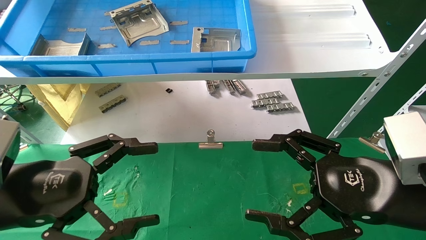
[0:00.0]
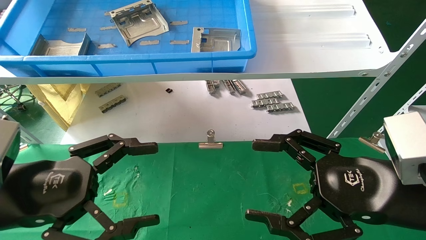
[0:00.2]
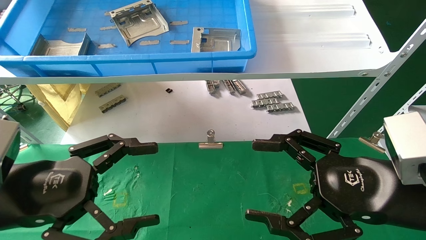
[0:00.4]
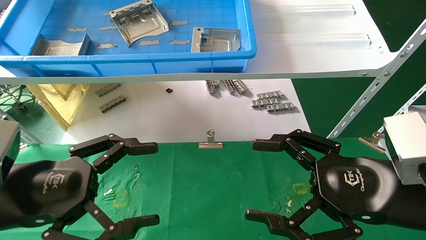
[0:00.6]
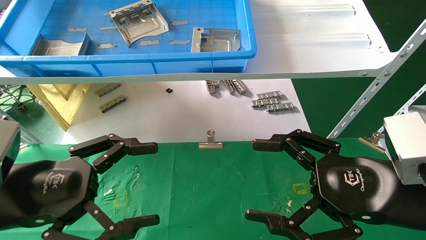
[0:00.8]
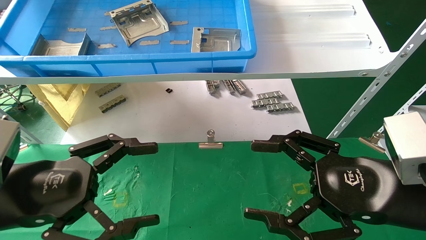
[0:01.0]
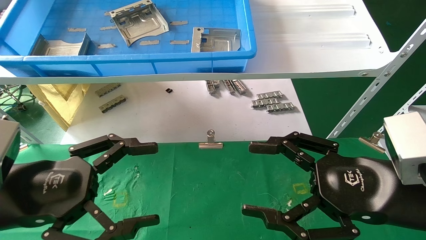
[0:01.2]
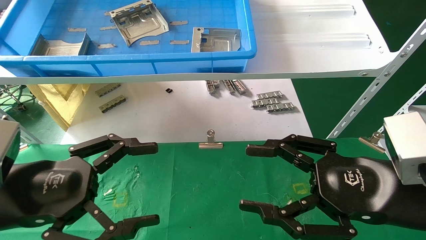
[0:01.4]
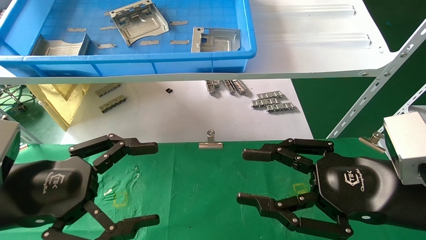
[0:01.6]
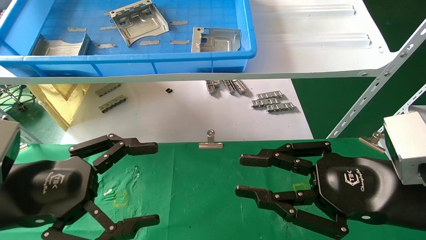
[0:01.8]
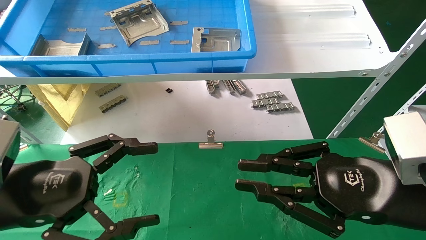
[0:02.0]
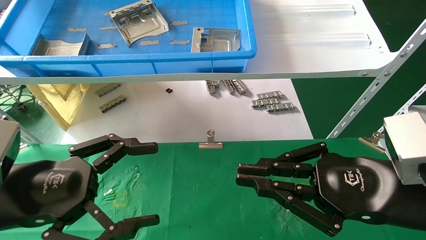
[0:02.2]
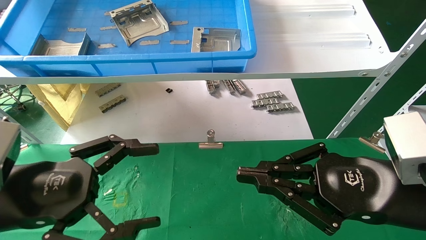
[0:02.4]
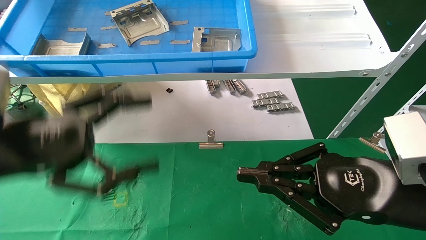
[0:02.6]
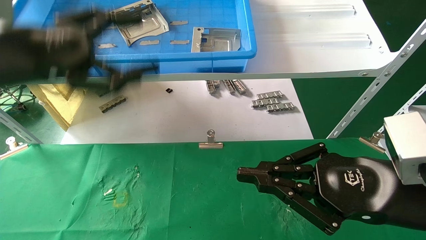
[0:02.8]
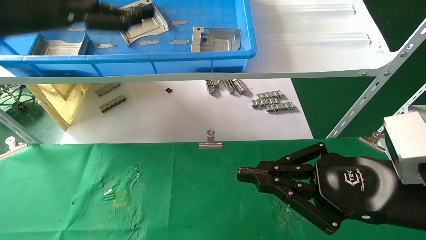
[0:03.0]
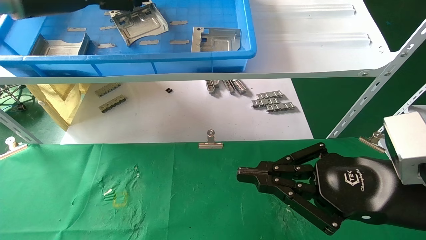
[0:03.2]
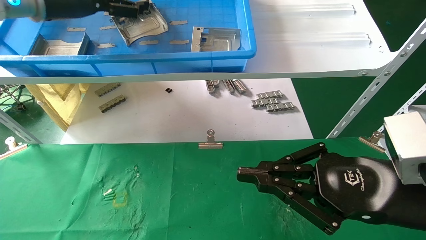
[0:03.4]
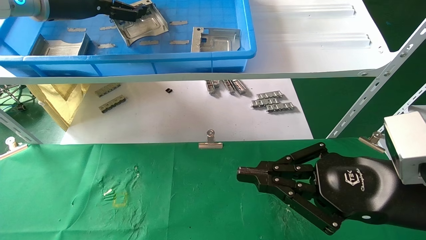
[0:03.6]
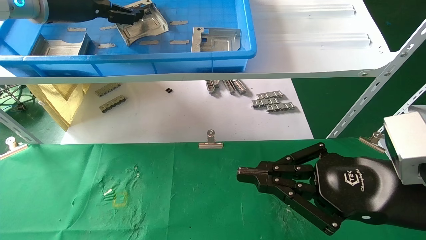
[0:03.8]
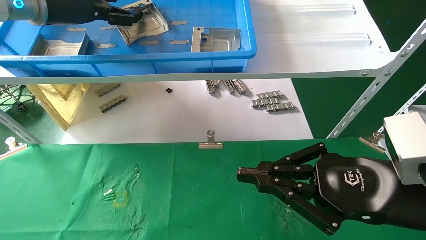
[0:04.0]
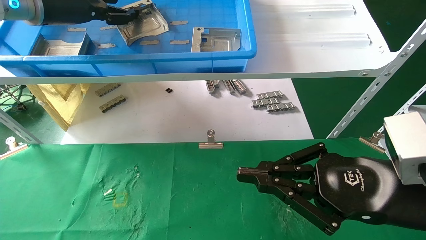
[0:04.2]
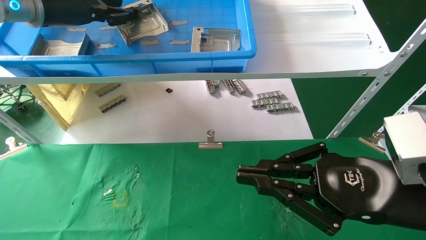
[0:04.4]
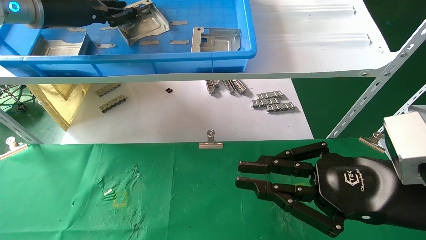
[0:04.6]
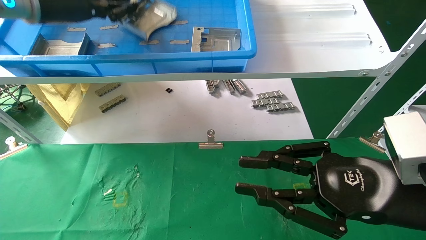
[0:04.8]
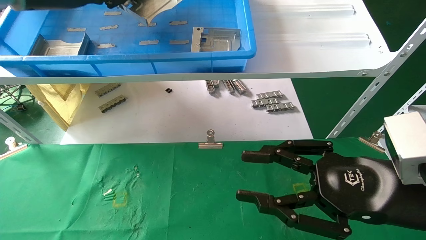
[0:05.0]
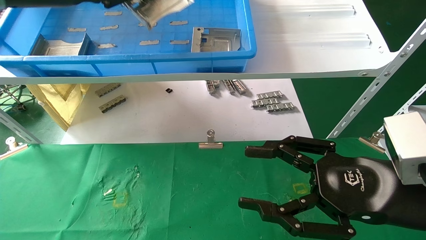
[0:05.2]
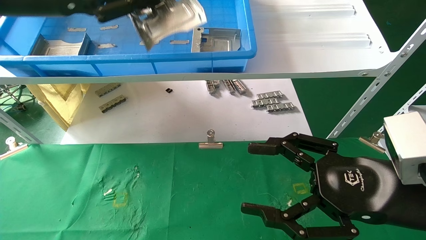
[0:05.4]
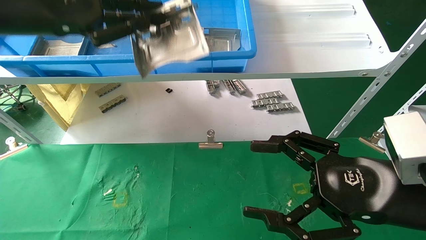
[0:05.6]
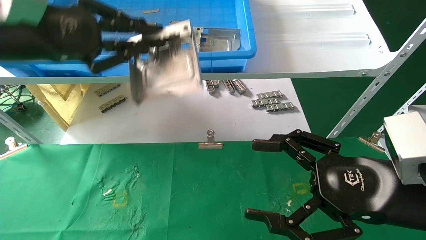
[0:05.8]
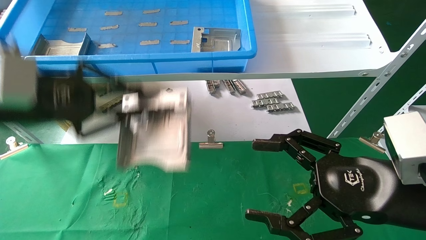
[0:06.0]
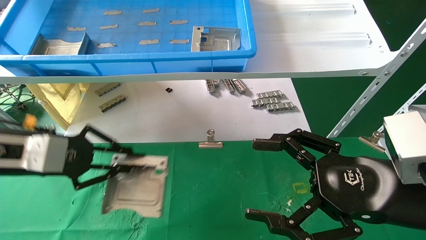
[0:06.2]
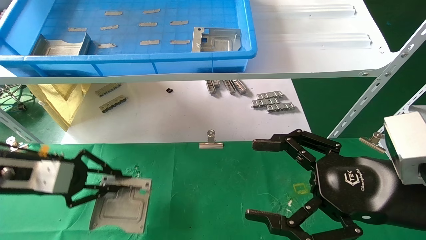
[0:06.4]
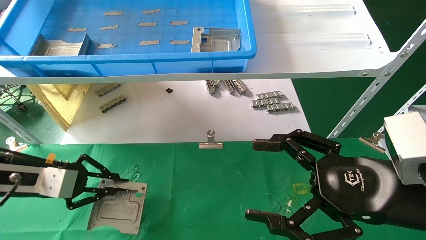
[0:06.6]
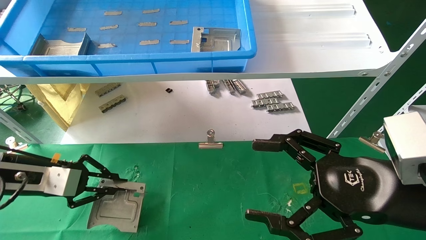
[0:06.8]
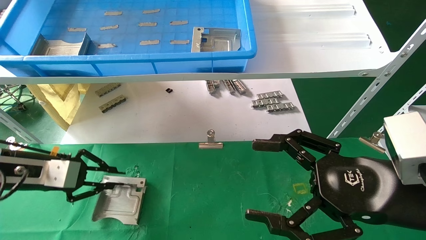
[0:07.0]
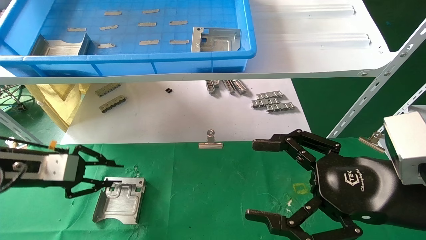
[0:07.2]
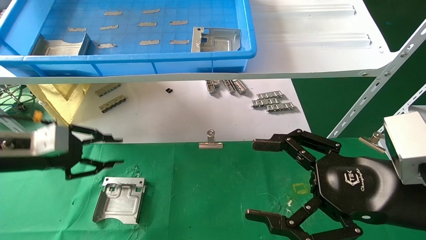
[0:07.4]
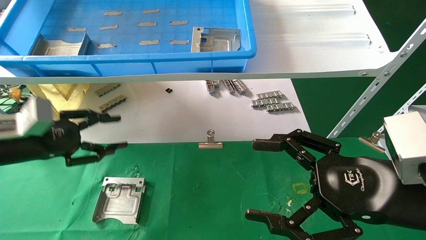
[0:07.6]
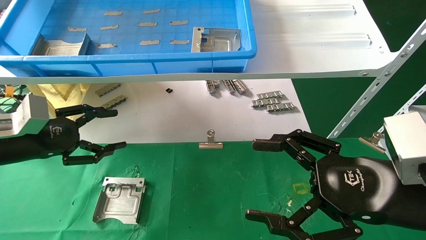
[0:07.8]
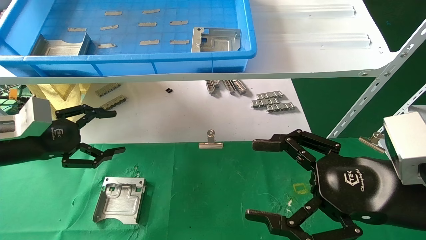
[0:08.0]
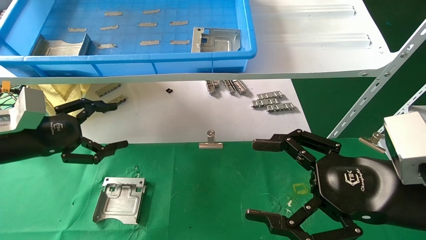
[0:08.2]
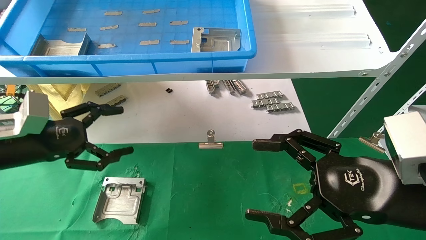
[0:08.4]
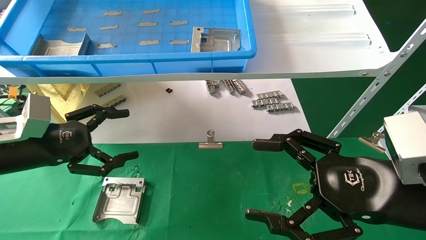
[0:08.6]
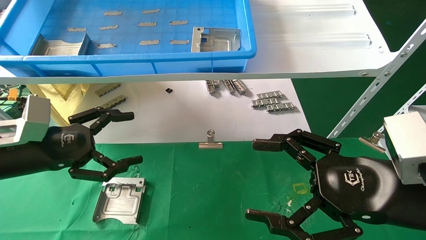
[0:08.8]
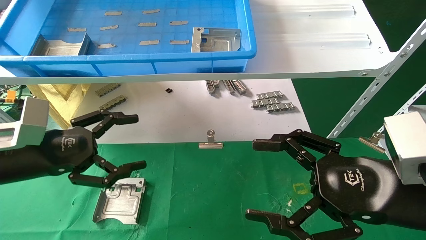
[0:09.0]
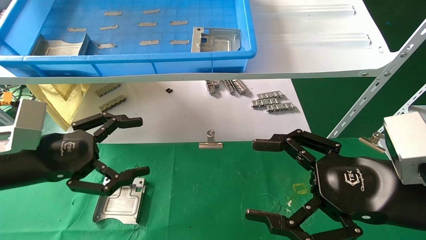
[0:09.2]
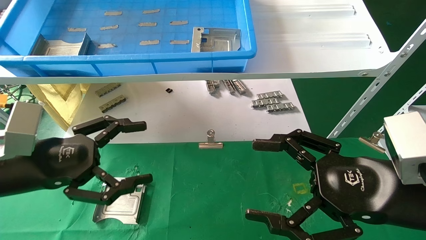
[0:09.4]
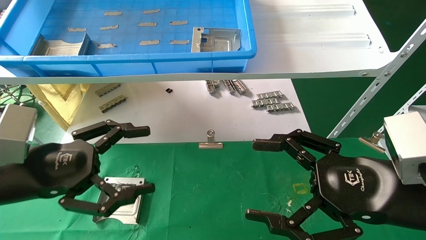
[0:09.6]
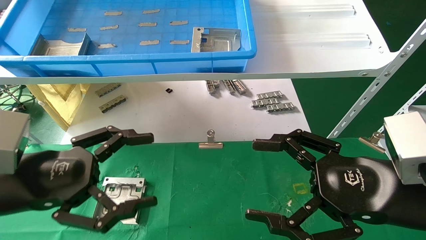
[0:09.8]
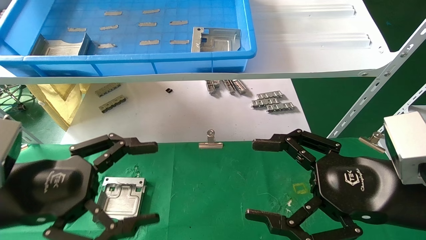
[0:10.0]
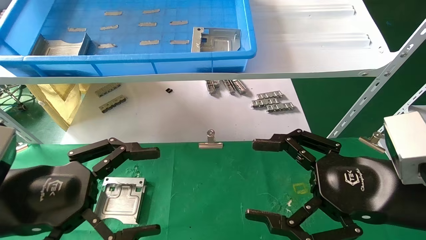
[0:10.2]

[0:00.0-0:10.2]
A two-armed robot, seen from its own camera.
Task of the whole recording: use the mechanical arm to pick up the parts and place them on the table.
Step, 0:01.8 to 0:04.4: Pick up the hard drive bracket from the feeding area.
Step, 0:04.6 to 0:07.8: Place the hard drive bracket into the box.
0:00.0 to 0:01.4: The two grippers keep their place.
0:01.4 to 0:03.0: The right gripper closes. Meanwhile the left gripper shifts approximately 25 cm upward and forward.
0:03.0 to 0:04.4: The left gripper goes some 10 cm forward, and closes.
0:04.4 to 0:05.8: The right gripper opens up. Meanwhile the left gripper travels backward and downward by roughly 15 cm, and closes up.
0:05.8 to 0:07.2: The left gripper heads downward and to the left, covering some 20 cm.
0:07.2 to 0:08.8: The left gripper shifts by approximately 5 cm, and opens.
0:08.8 to 0:10.2: The left gripper is displaced backward and to the right by approximately 10 cm.
